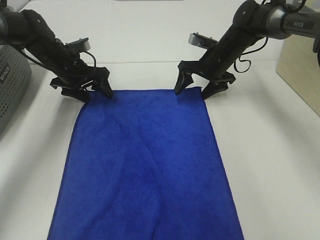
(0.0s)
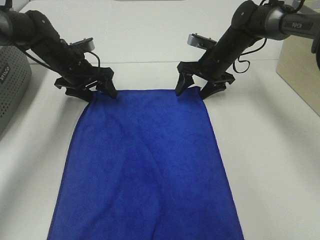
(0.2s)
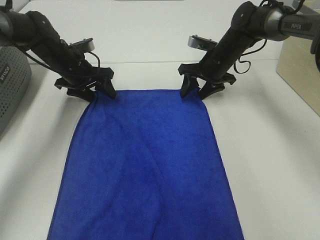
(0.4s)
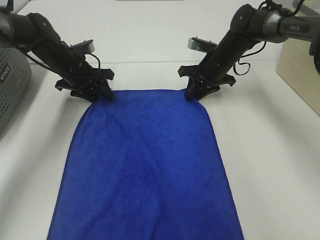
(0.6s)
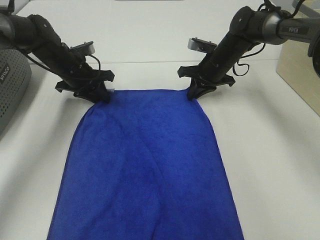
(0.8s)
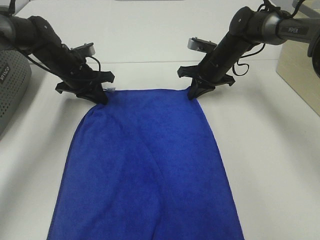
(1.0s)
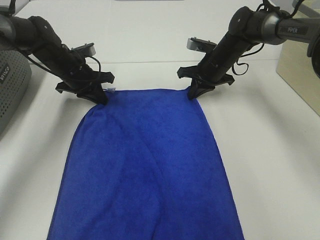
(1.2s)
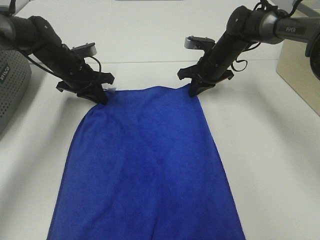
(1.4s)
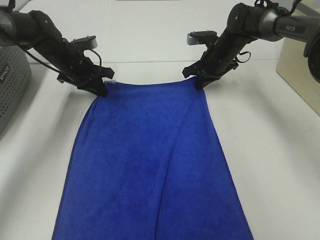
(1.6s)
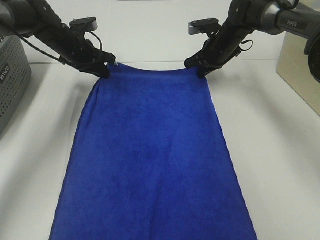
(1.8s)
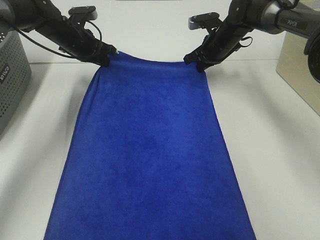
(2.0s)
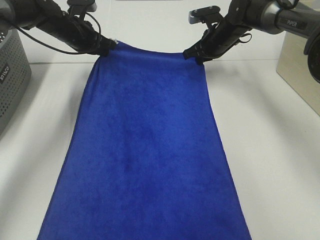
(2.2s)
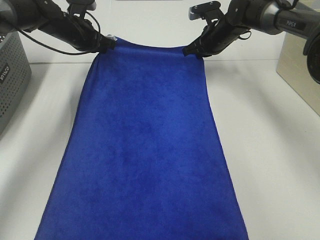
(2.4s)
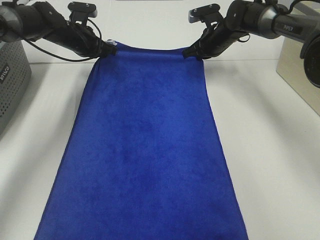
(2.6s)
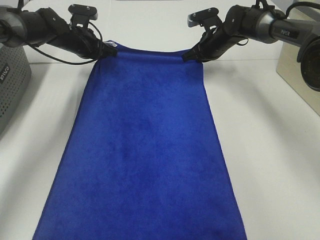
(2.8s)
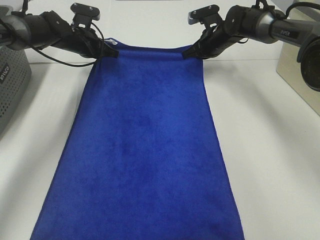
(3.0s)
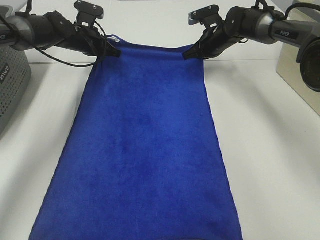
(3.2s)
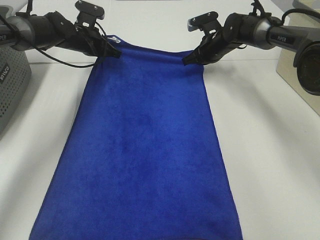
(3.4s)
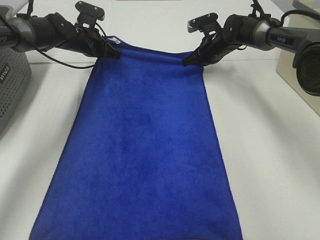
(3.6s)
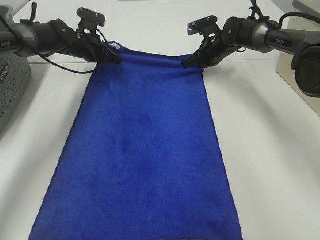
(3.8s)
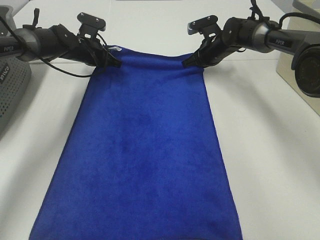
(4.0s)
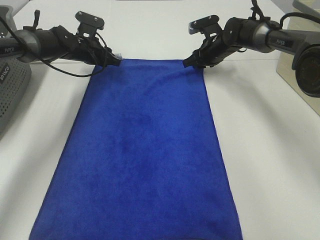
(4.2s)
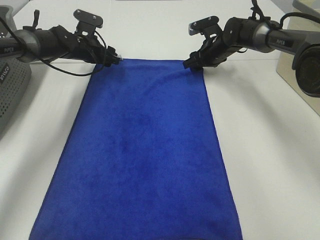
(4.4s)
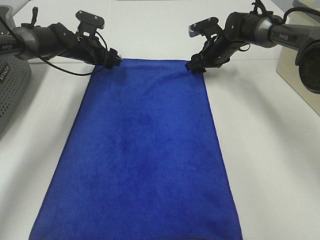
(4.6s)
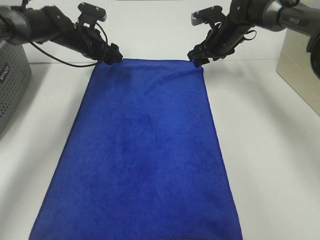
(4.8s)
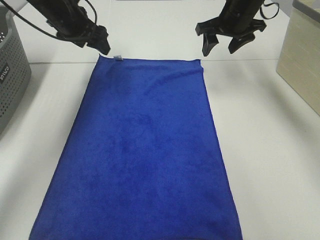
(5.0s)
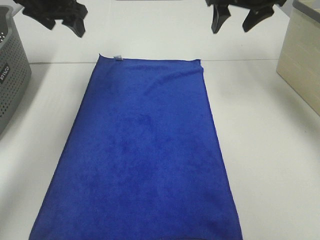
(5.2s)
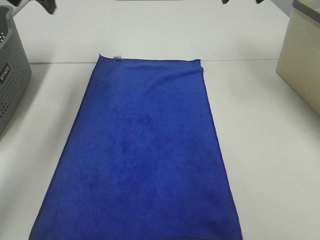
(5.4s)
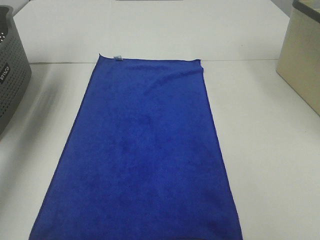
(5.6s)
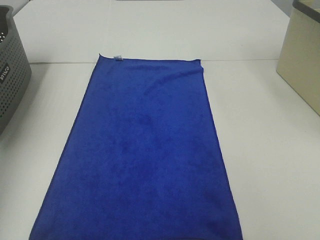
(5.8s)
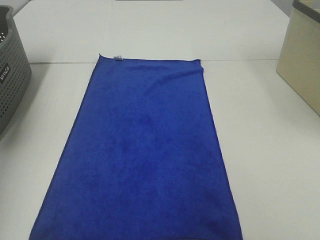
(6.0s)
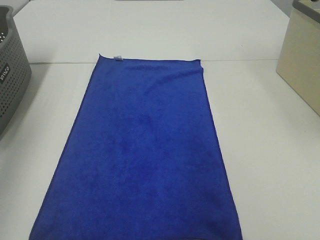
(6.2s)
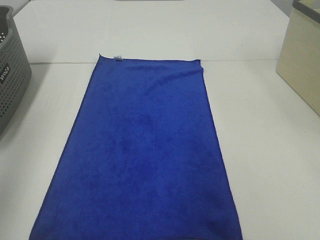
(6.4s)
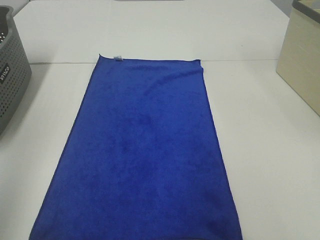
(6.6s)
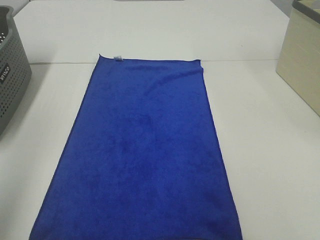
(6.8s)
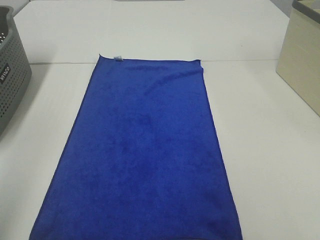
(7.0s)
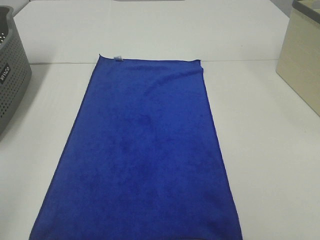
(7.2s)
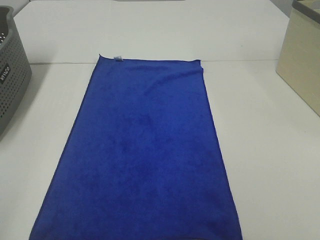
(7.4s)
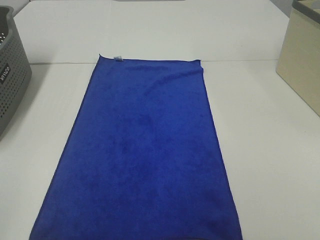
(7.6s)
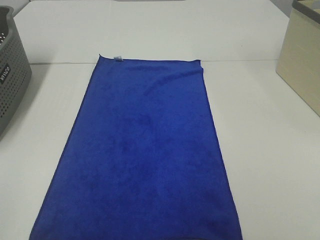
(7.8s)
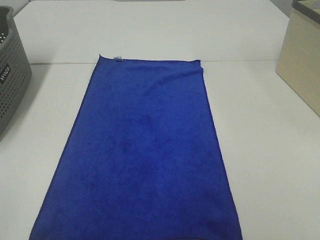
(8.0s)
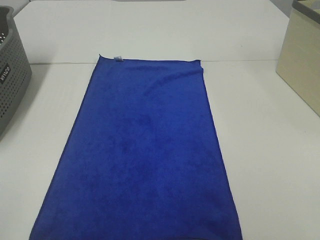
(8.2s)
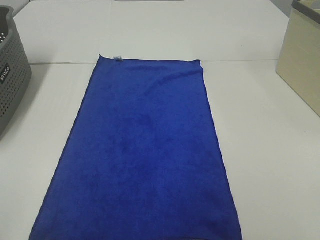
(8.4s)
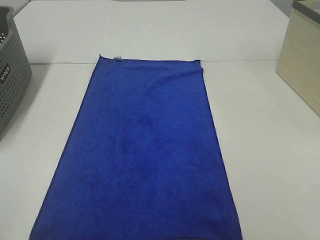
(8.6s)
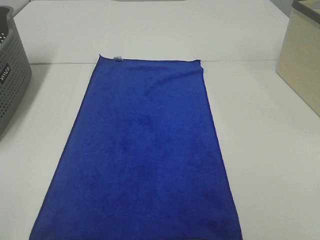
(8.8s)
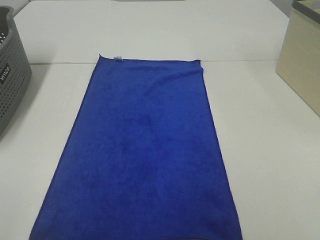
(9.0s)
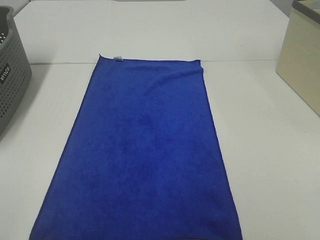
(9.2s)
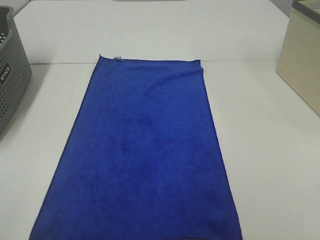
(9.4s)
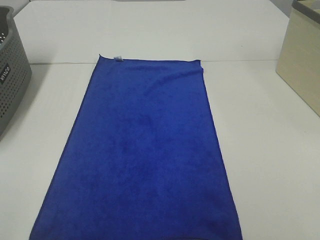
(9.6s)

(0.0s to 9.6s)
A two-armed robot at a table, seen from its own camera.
Task of the whole recording: Remove the towel and place it.
0.0s - 1.6s: The left gripper closes up. Meanwhile the right gripper closes up.
1.6s - 3.2s: The left gripper is displaced forward by approximately 5 cm.
3.2s - 4.8s: The left gripper opens up. Meanwhile the right gripper opens its fingers.
4.8s - 6.4s: The left gripper is displaced backward, upward and to the left by about 50 cm, while the right gripper shifts some 40 cm backward and upward.
6.4s - 8.0s: The left gripper heads backward and downward, covering about 25 cm.

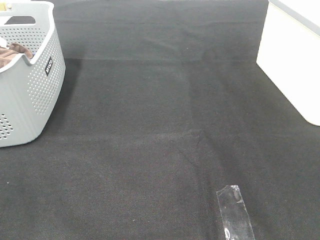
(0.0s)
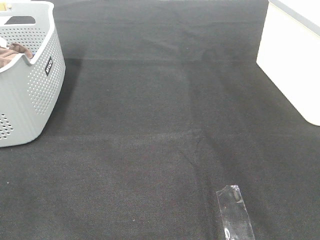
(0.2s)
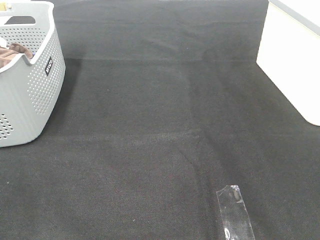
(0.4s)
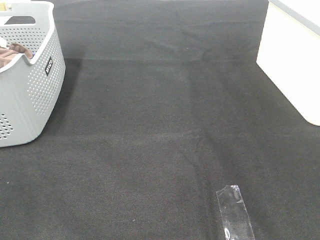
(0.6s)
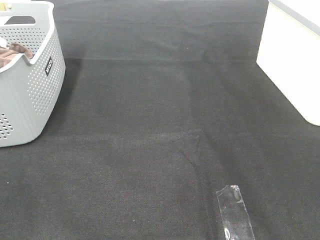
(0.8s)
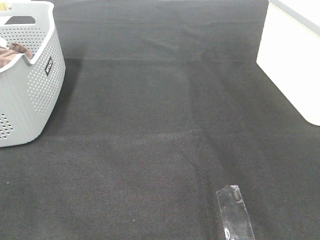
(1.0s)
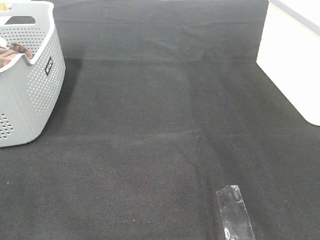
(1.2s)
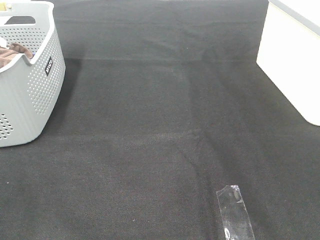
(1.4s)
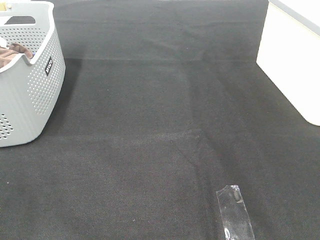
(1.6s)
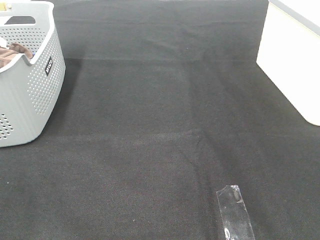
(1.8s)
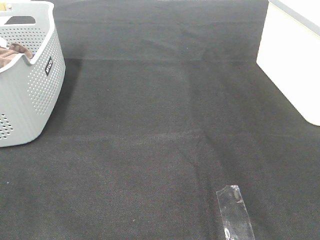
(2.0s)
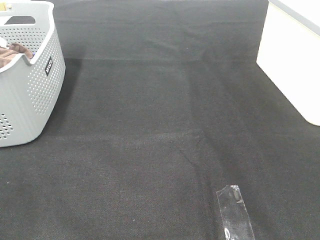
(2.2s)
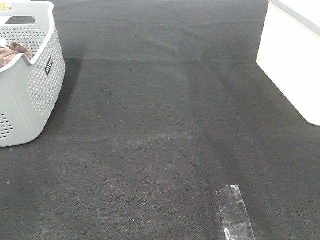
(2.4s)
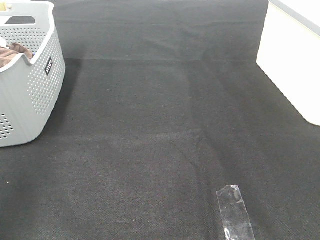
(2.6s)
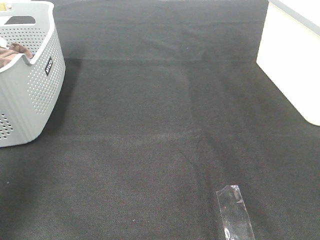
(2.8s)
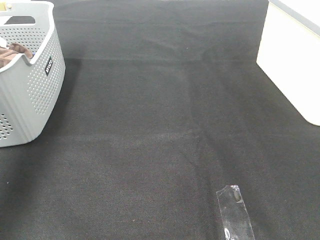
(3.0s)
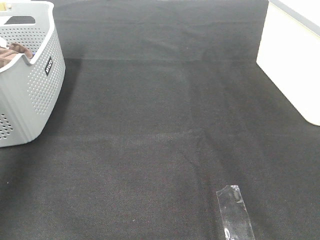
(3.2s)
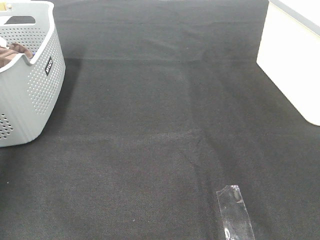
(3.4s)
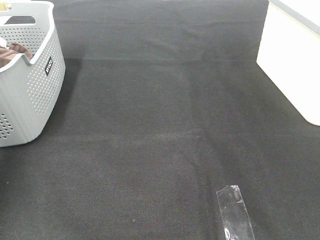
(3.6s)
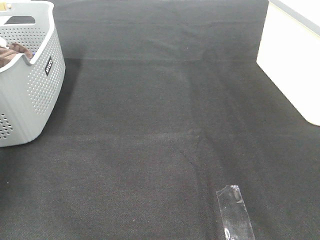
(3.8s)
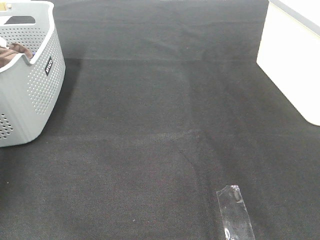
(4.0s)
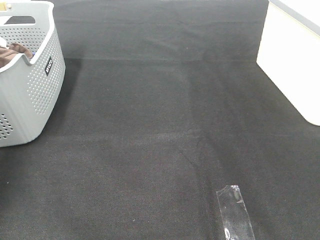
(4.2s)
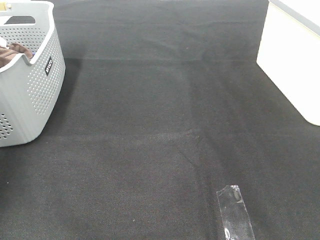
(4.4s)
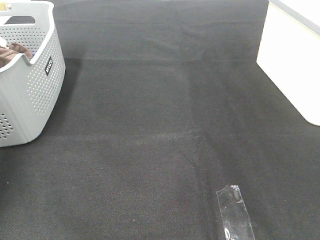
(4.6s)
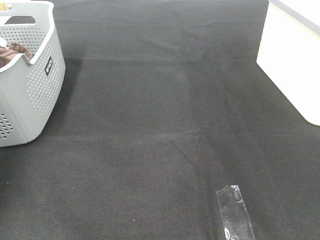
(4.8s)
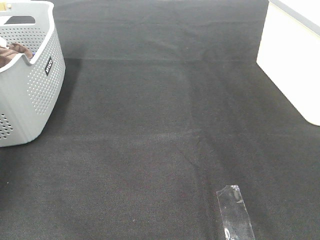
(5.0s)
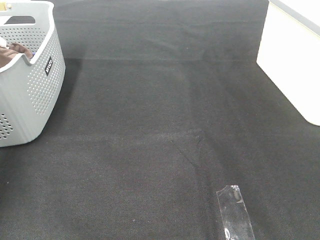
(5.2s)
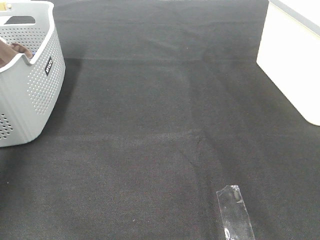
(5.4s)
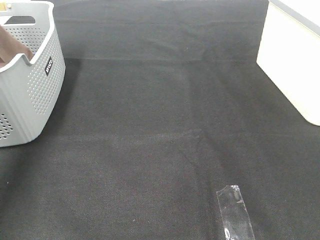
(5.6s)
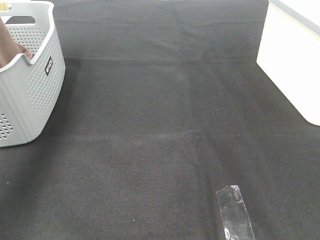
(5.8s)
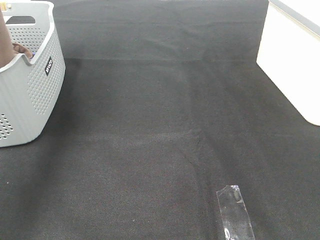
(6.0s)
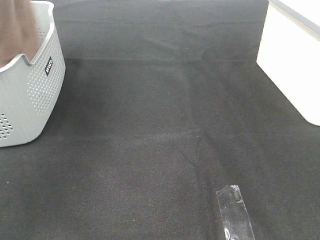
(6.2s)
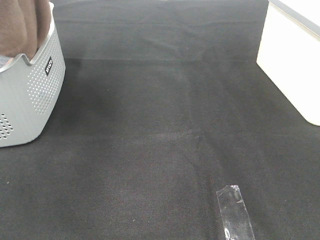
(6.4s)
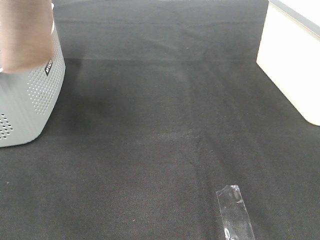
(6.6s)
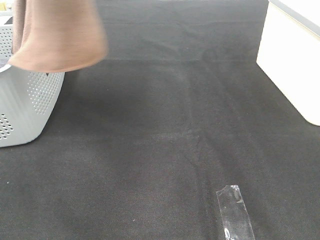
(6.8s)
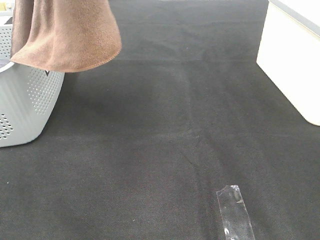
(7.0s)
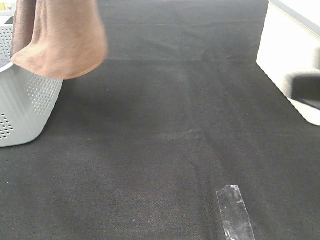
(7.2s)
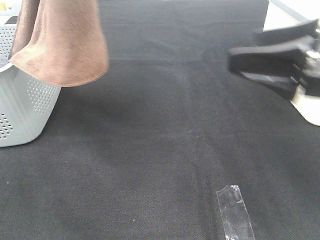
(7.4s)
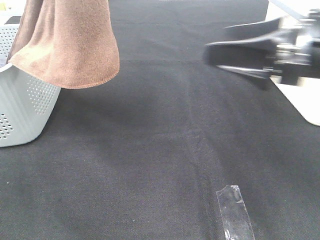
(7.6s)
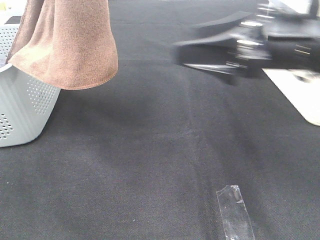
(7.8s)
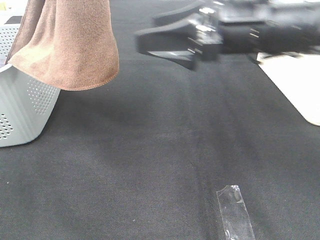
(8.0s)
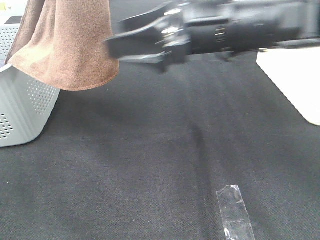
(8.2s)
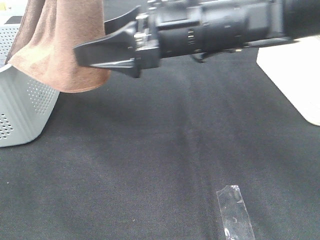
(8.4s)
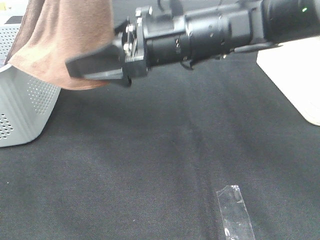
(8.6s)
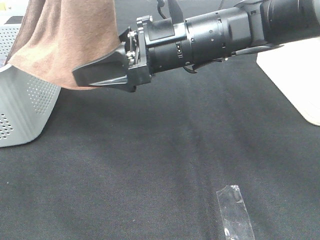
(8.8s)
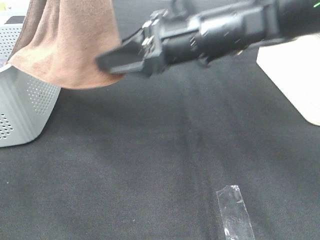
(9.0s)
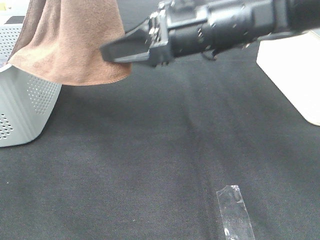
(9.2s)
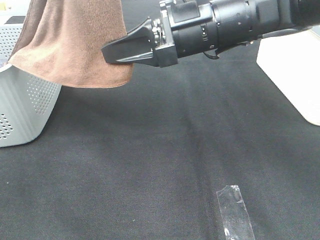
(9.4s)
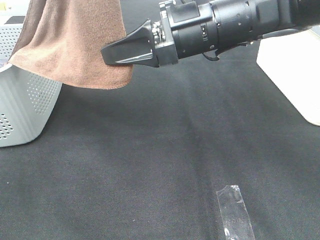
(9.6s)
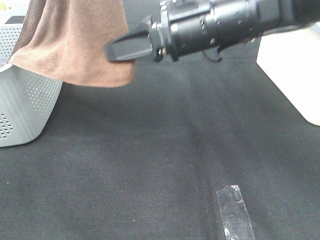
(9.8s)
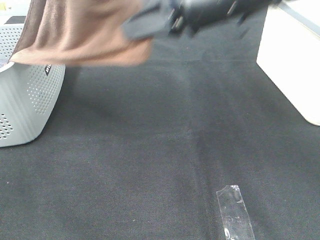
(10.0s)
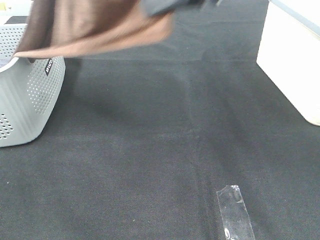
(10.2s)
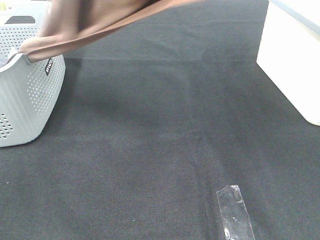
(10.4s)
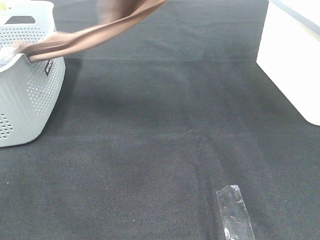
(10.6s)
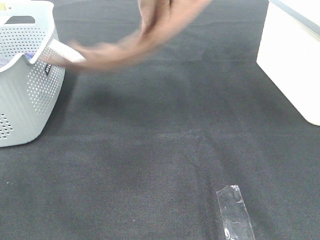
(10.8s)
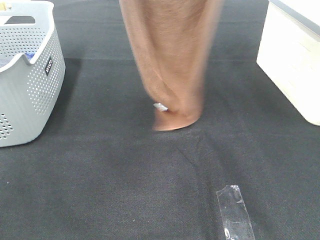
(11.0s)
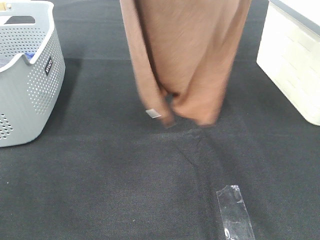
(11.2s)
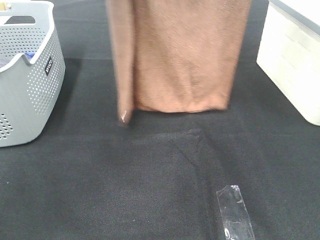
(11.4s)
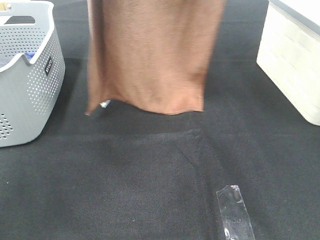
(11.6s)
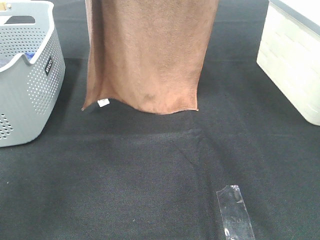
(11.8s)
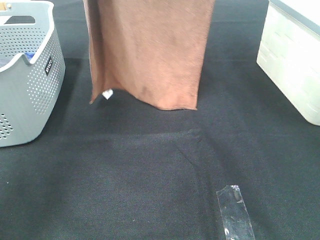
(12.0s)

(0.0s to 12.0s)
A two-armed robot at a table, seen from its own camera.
Task of the whole recording: Remove the towel and place it.
Step, 6.4s - 11.2s: Right hand: grab a corner of the brown towel and straighten it.
0.0s - 1.6s: Both grippers stay about where they are.
1.6s - 3.0s: The left gripper is displaced forward and upward by roughly 30 cm.
3.0s - 4.4s: The left gripper heads downward and forward, covering approximately 25 cm, and closes up.
4.4s - 6.0s: The left gripper goes about 30 cm upward, to the right and backward, and closes its fingers.
6.0s - 7.6s: The right gripper heads forward and to the left, covering approximately 25 cm. Meanwhile the left gripper moves to the right, backward and upward, about 15 cm.
7.6s - 9.0s: The right gripper is displaced to the left and forward by some 15 cm, and closes up.
9.0s - 10.4s: The right gripper travels upward by about 20 cm, and closes up.
10.4s - 12.0s: The left gripper is displaced forward and to the left by approximately 15 cm. Meanwhile the right gripper moves forward and upward, roughly 10 cm.
